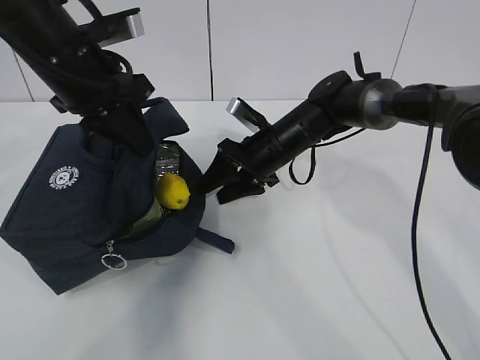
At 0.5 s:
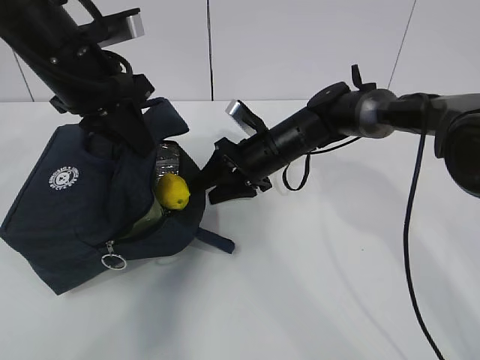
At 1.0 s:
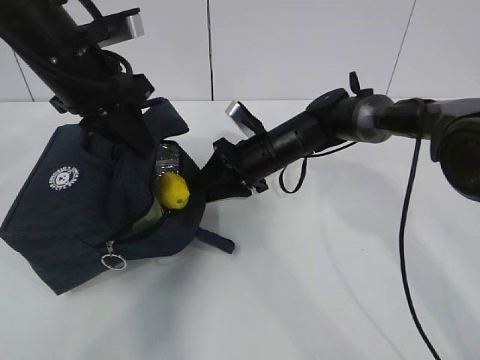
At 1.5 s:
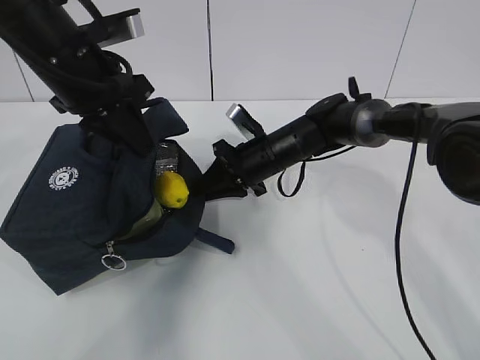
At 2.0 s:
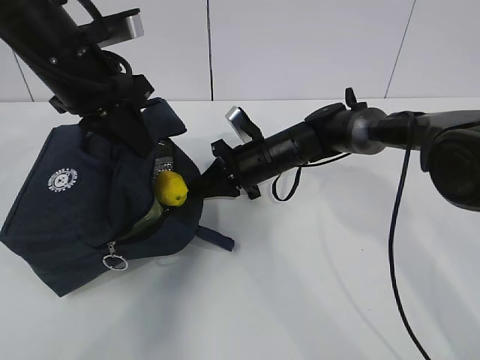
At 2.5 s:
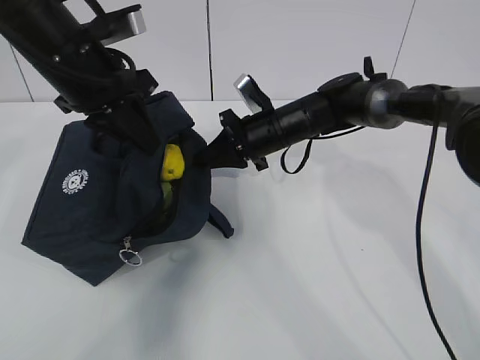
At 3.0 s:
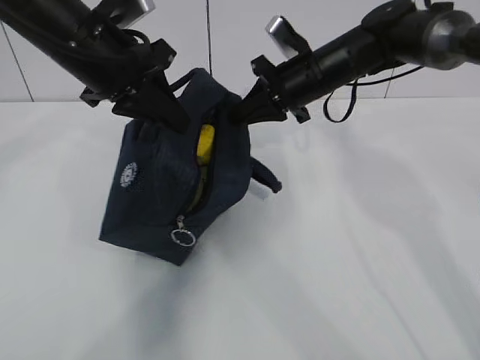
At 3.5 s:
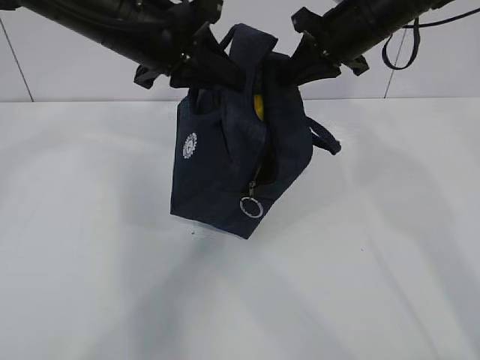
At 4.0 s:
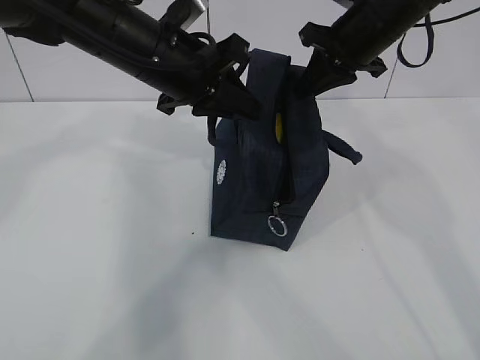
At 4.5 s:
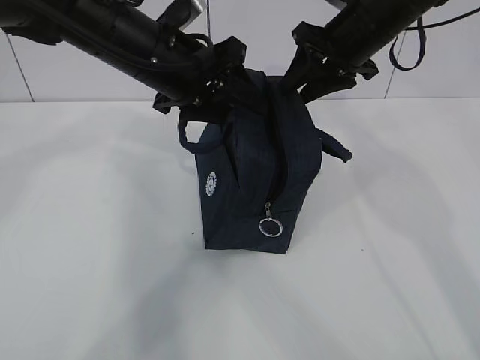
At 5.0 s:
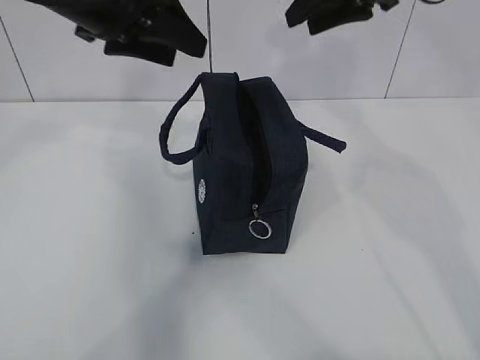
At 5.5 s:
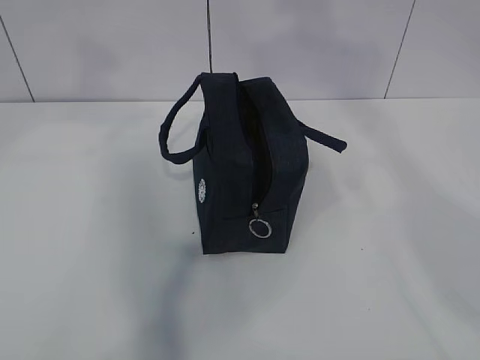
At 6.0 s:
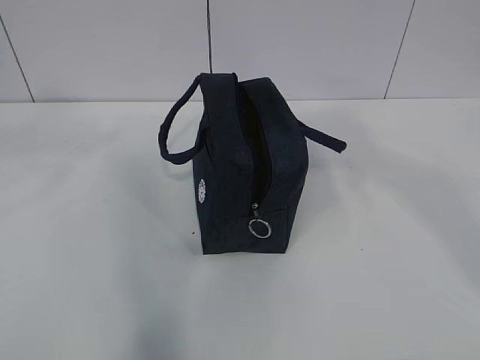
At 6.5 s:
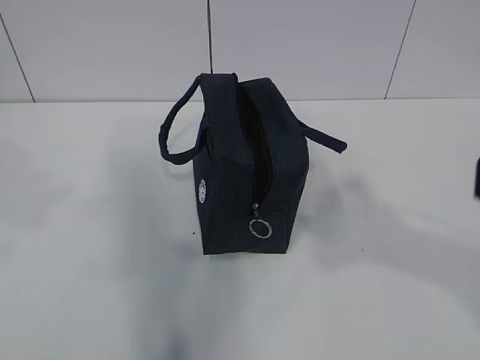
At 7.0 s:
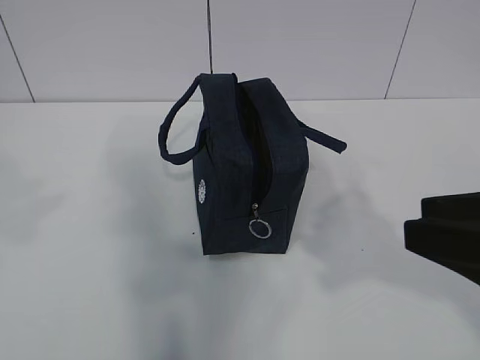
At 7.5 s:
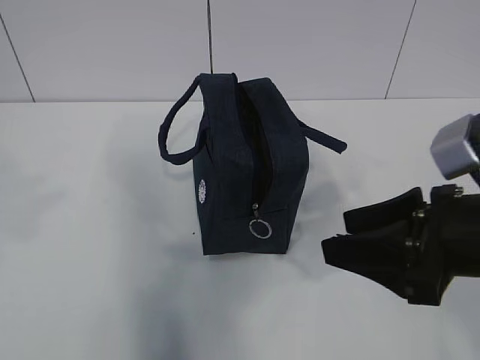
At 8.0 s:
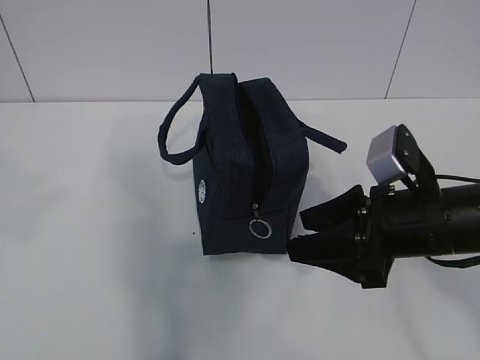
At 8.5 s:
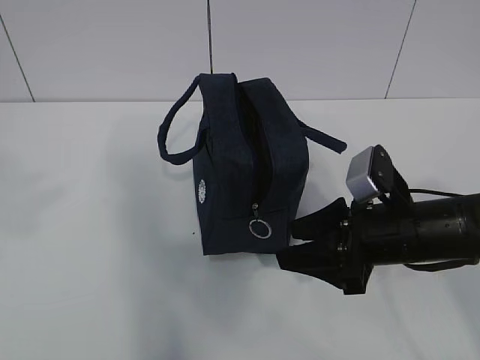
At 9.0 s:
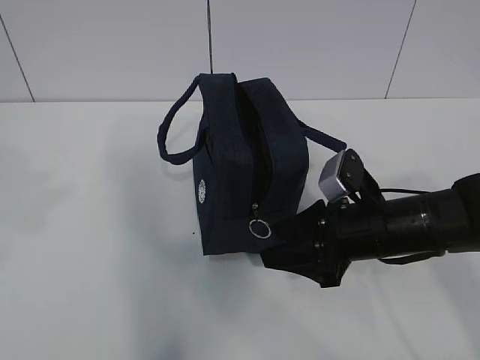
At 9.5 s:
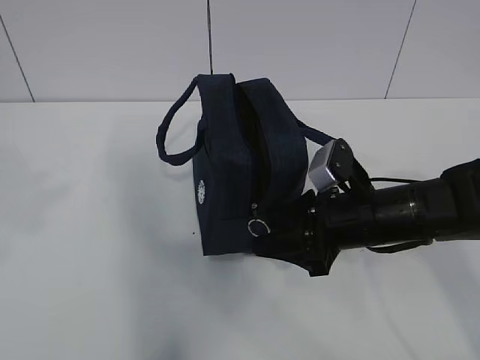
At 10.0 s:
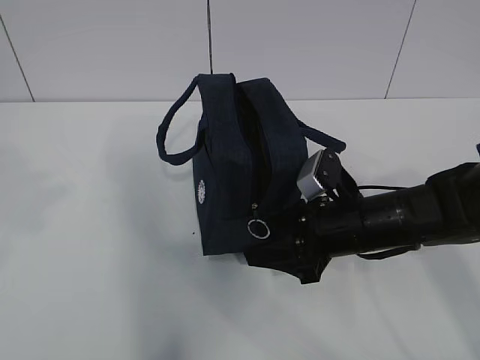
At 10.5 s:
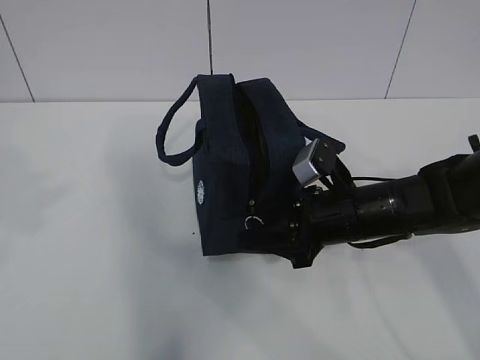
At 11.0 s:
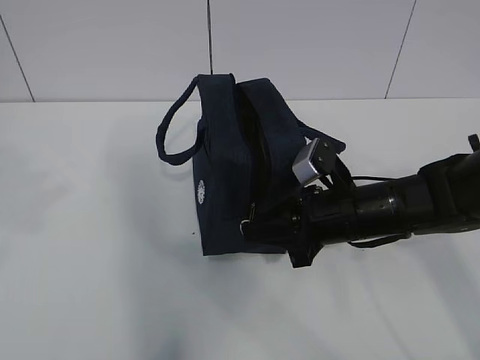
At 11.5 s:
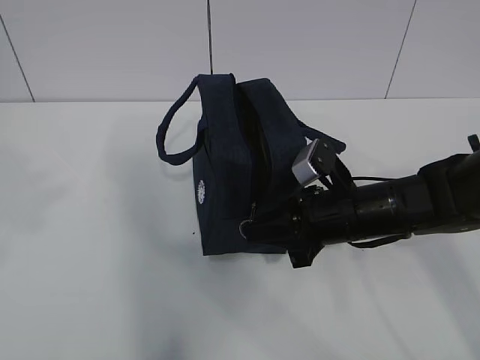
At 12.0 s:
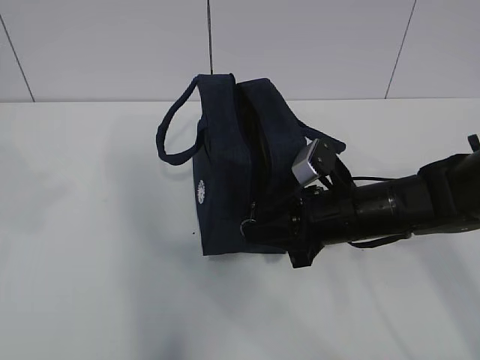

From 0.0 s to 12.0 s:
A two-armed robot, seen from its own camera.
Step, from 0.0 s to 11.0 s: Grab the lunch bag with your left hand.
From 0.0 s to 2.0 s: The right gripper closes its fingers.
From 2.0 s to 4.0 s: The right gripper travels upward and to the right by some 25 cm. Meanwhile the left gripper shifts roughly 10 cm to the right.
From 4.0 s to 6.0 s: The right gripper travels backward and upward by about 40 cm, and opens its fingers. Meanwhile the left gripper travels upward, backward and to the left by approximately 30 cm, and opens.
From 6.0 s to 8.0 s: The left gripper is displaced backward and downward by some 10 cm; the right gripper moves downward and forward, some 35 cm.
From 8.0 s to 10.0 s: The right gripper goes approximately 5 cm downward.
From 10.0 s to 12.0 s: The right gripper closes up.

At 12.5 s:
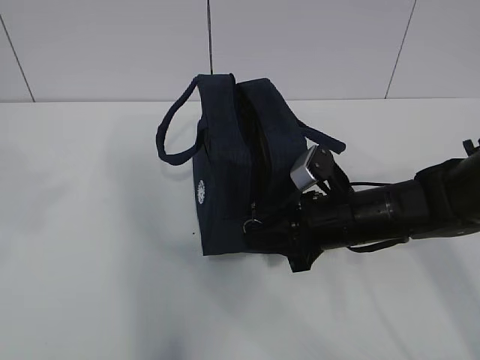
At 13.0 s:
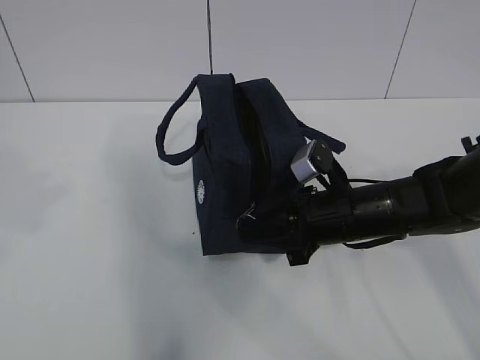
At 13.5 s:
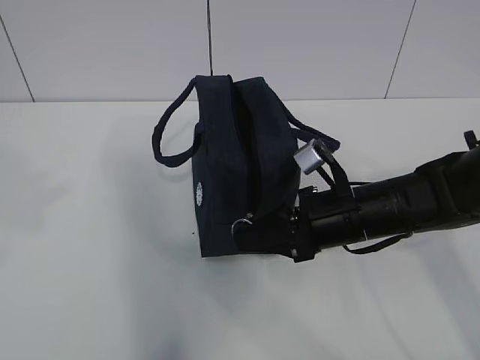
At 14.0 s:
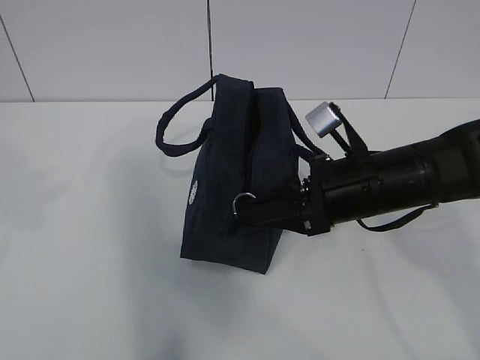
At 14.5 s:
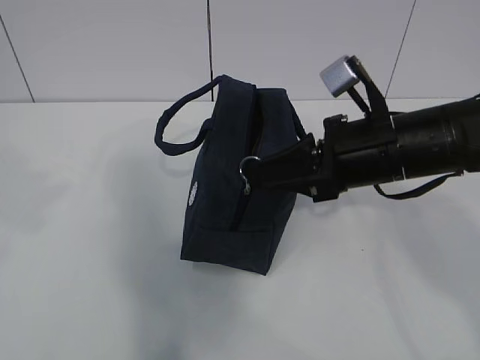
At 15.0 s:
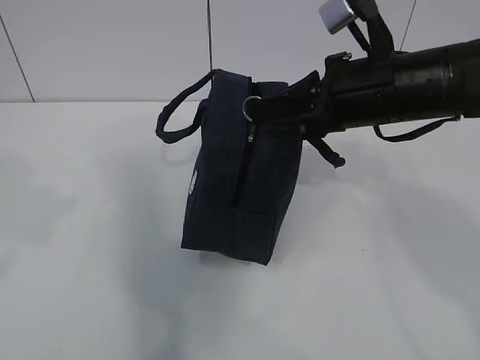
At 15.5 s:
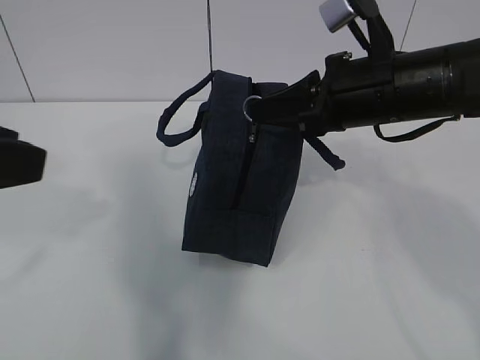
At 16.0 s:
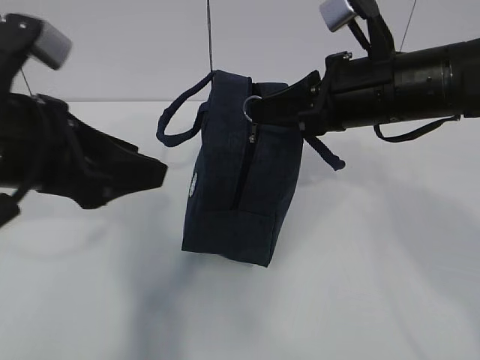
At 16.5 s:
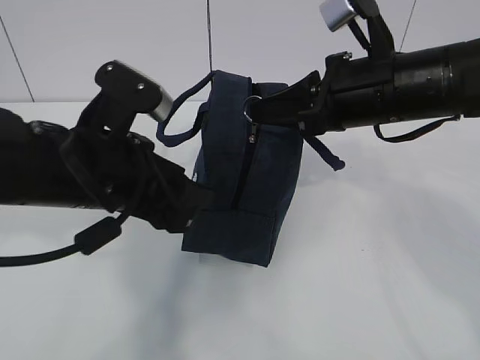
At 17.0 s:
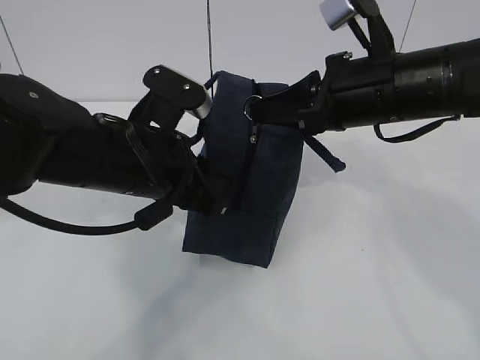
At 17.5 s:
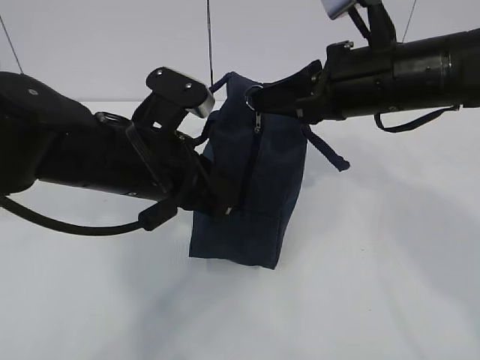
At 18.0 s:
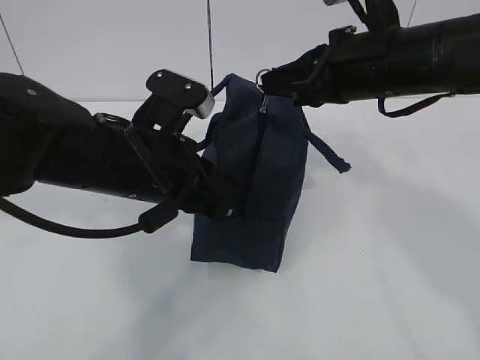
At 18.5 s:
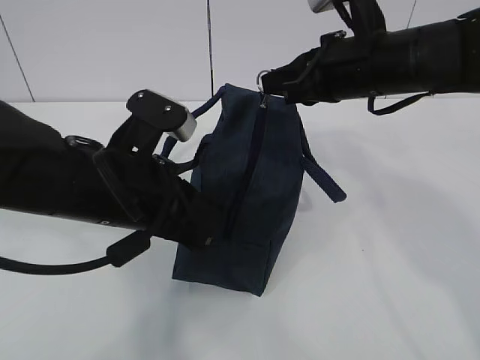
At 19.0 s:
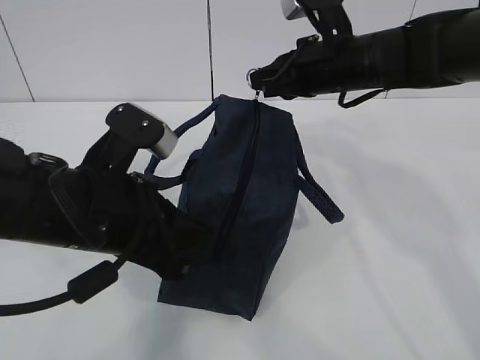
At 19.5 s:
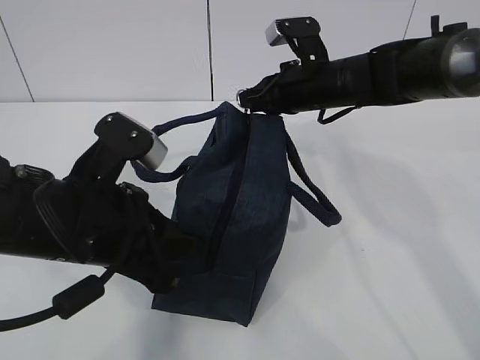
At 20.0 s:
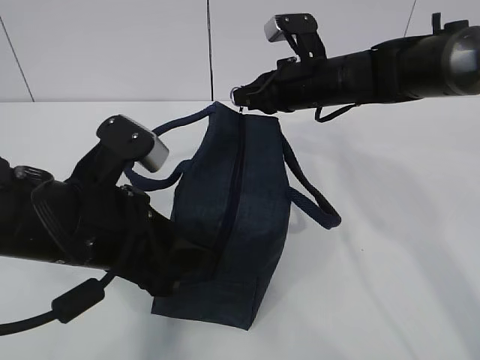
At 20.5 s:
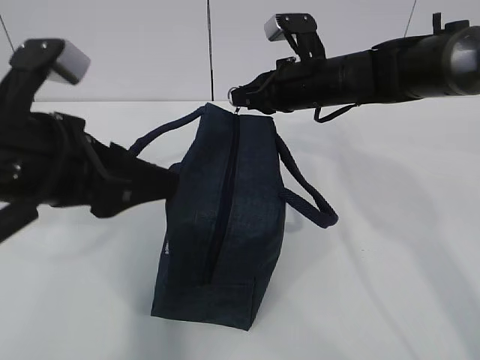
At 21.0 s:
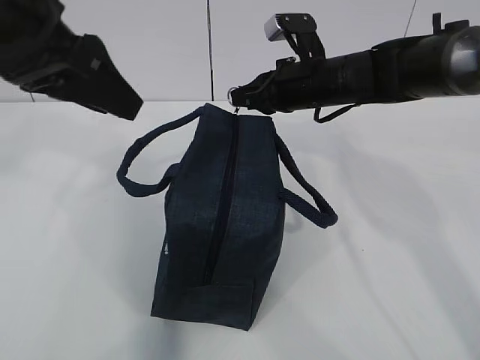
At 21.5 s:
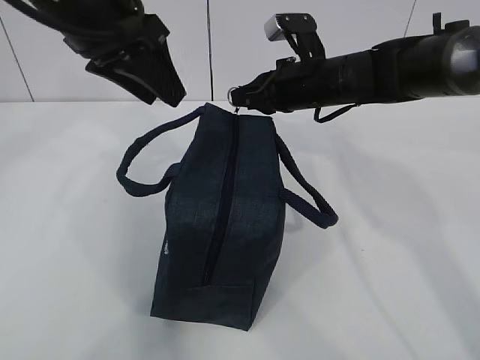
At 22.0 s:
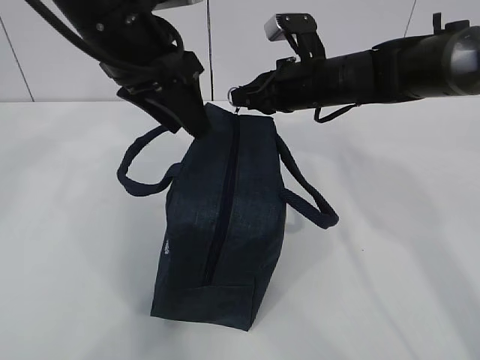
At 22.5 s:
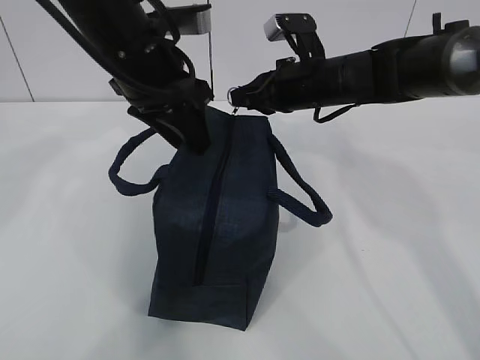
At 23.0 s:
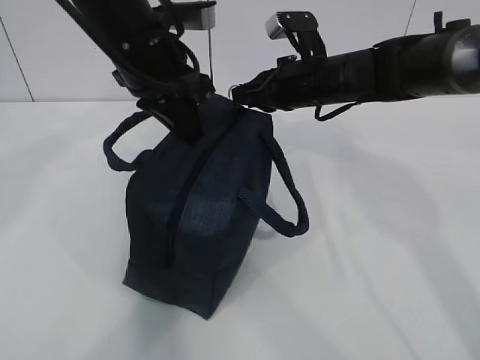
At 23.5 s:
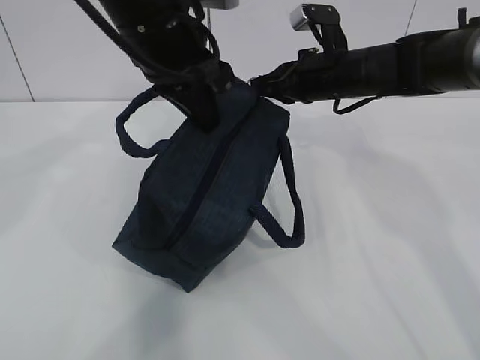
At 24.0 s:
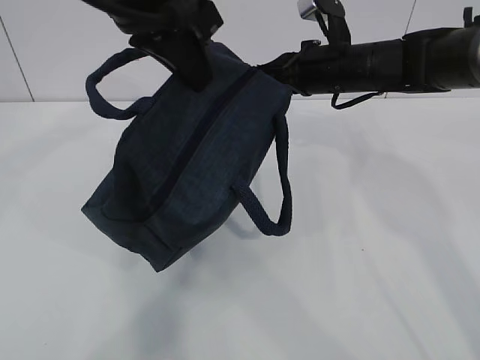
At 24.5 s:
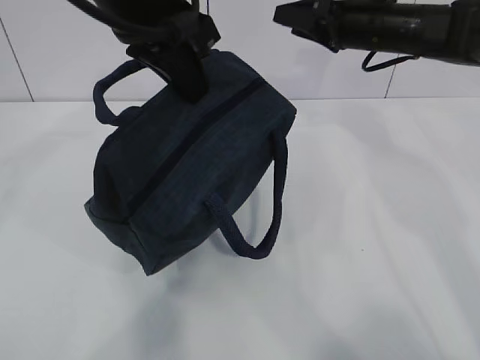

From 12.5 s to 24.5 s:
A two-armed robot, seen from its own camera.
Step, from 12.5 s to 15.0 s: Pull the zipper with your right hand.
Step, from 15.5 s to 16.0 s: Grab the lunch bag with your left hand.
From 12.5 s to 14.5 s: The right gripper shifts about 10 cm upward.
From 14.5 s to 16.5 s: The left gripper travels downward, to the right and forward by roughly 25 cm.
From 16.5 s to 18.5 s: The left gripper closes its fingers.
From 18.5 s to 20.5 s: The left gripper goes roughly 10 cm upward and to the left, and opens up. The right gripper heads forward and downward, covering roughly 10 cm.
From 20.5 s to 22.5 s: The left gripper shifts approximately 15 cm forward and to the right.
From 22.5 s to 24.5 s: The right gripper travels to the right and upward by roughly 10 cm, and opens up; the left gripper is displaced upward by some 10 cm, and closes up.

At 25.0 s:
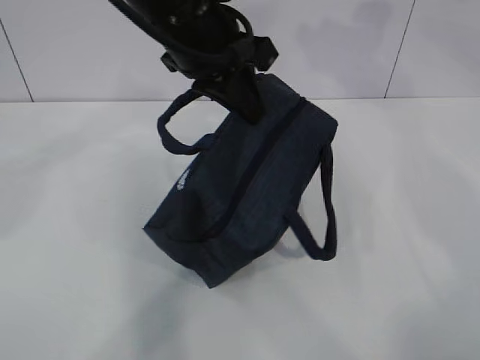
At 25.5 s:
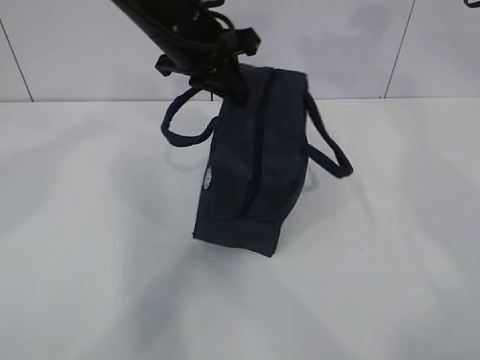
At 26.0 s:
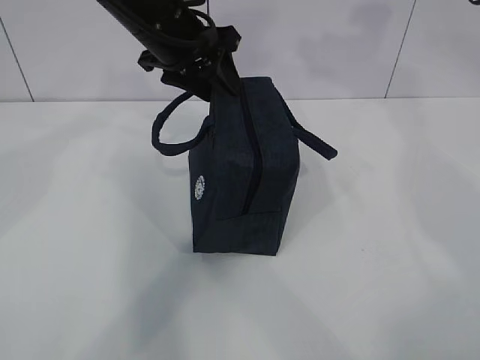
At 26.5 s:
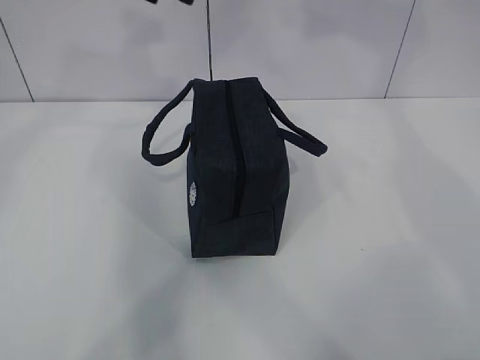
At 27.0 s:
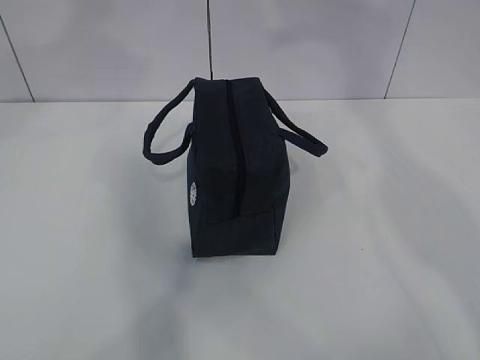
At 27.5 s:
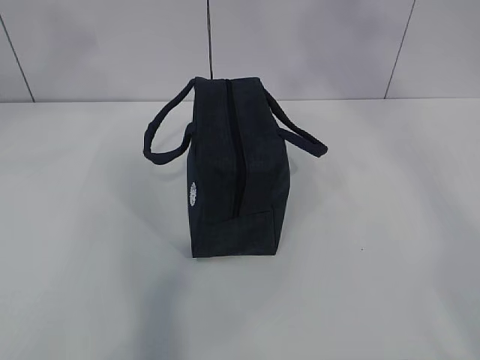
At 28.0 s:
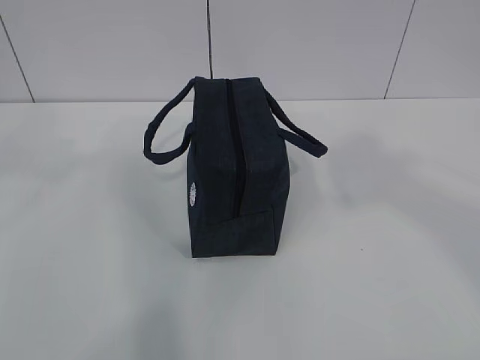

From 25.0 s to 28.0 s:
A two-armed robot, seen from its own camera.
From 25.0 s to 26.5 s: The right gripper goes roughly 15 cm upward. The left gripper is displaced to the left and upward by approximately 10 cm, and opens its fingers.
From 26.5 s to 28.0 s: Both grippers travel together backward, about 35 cm.
